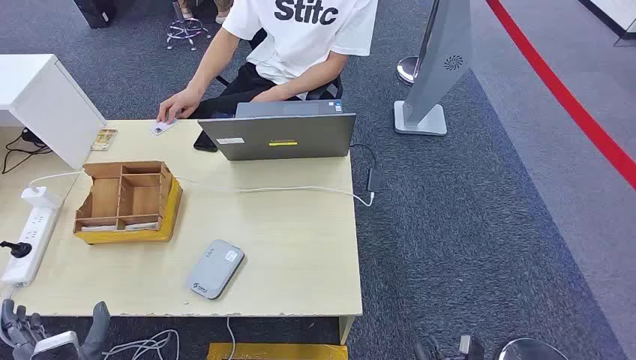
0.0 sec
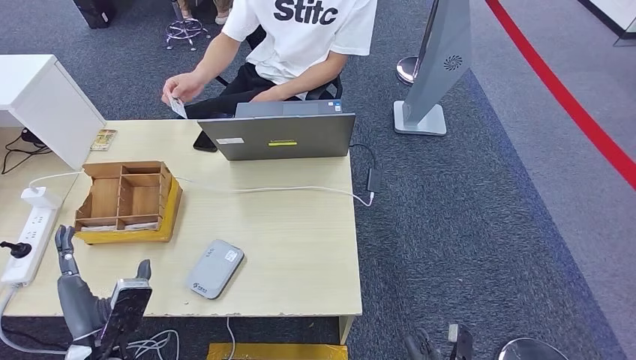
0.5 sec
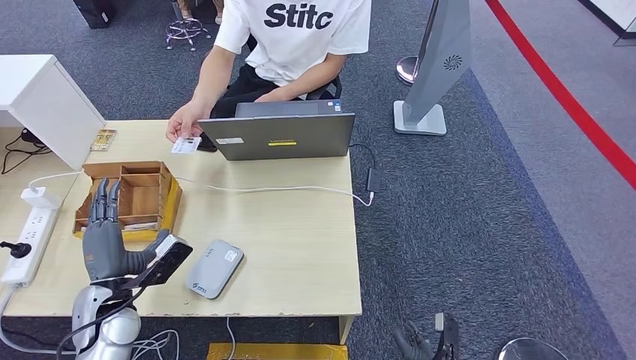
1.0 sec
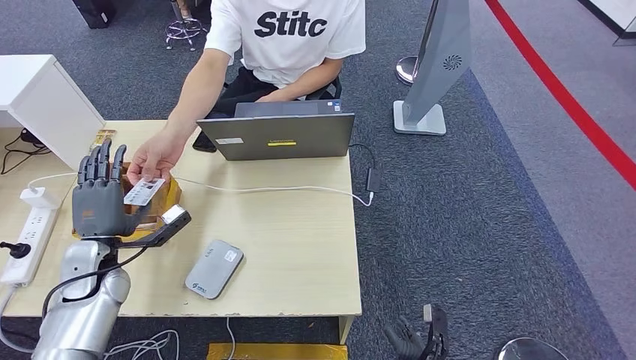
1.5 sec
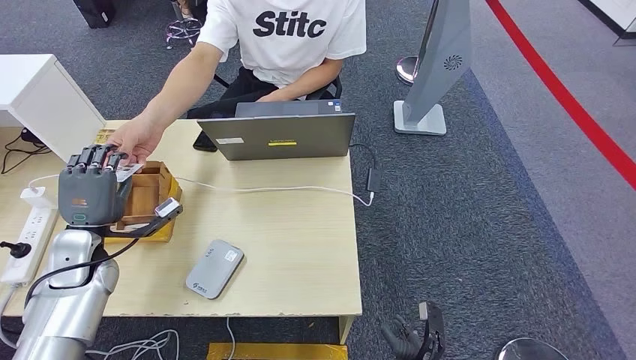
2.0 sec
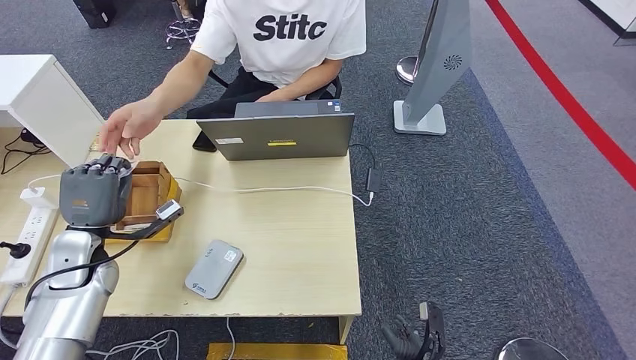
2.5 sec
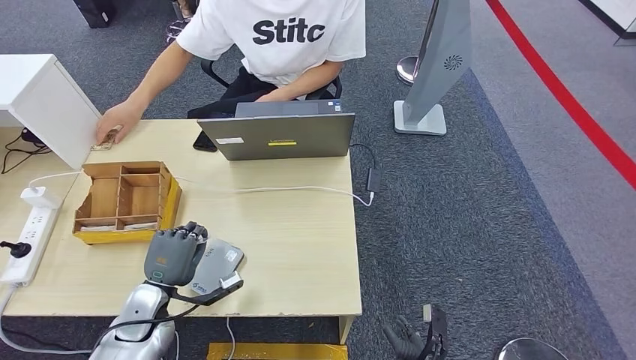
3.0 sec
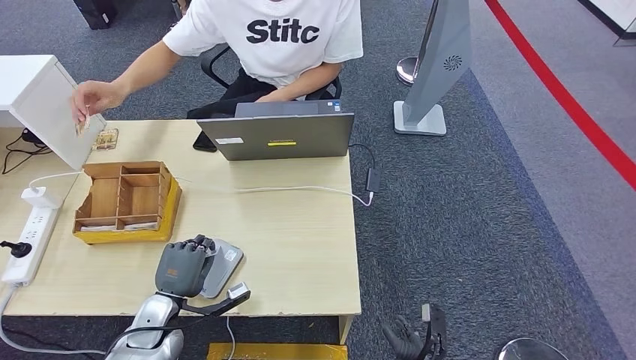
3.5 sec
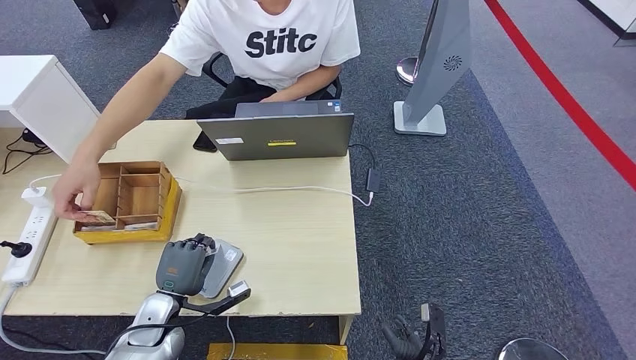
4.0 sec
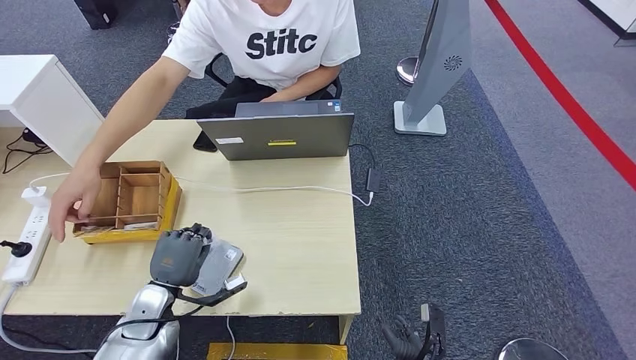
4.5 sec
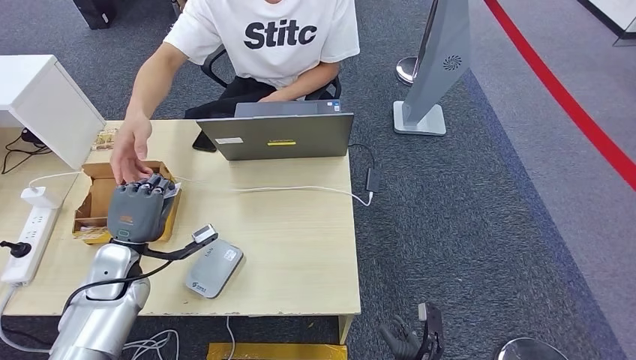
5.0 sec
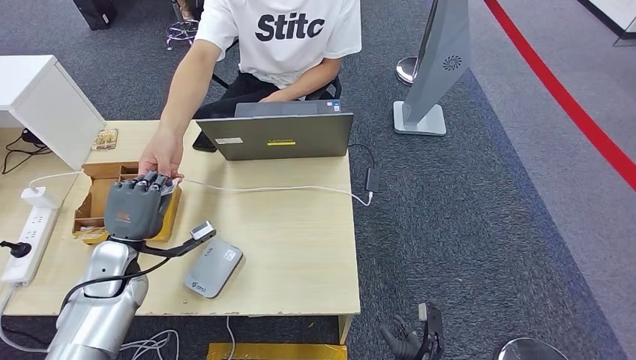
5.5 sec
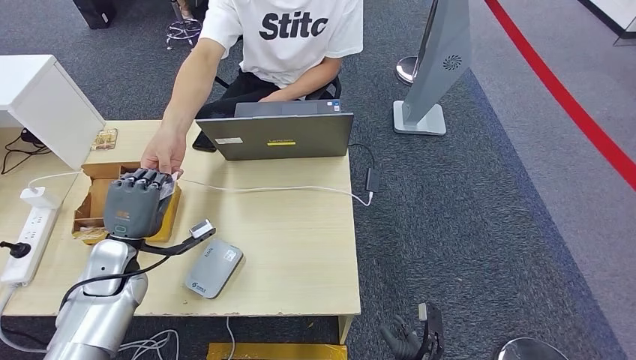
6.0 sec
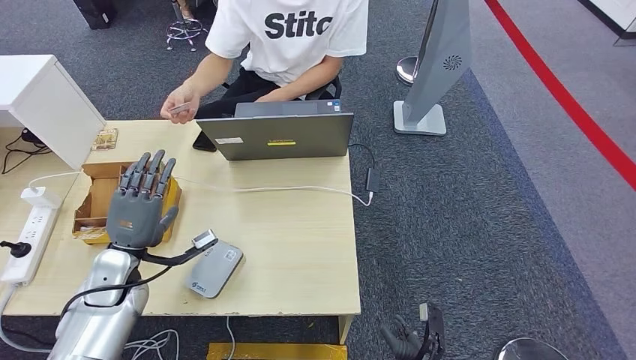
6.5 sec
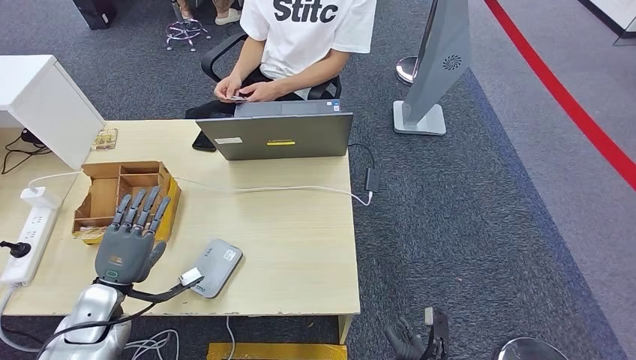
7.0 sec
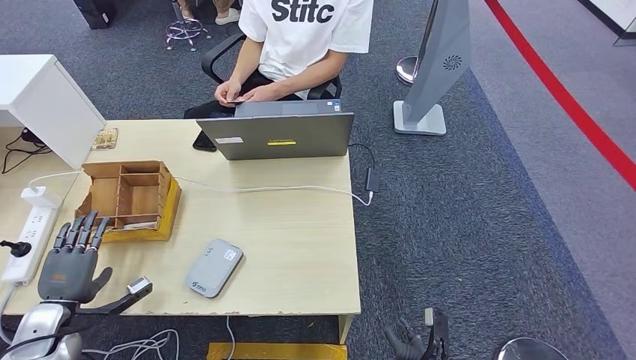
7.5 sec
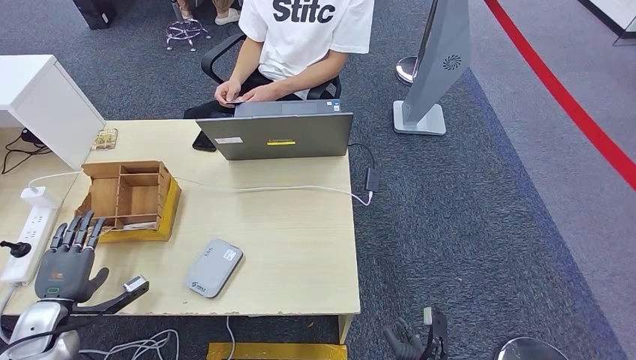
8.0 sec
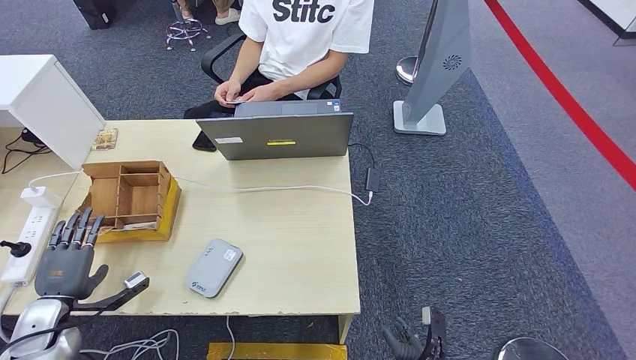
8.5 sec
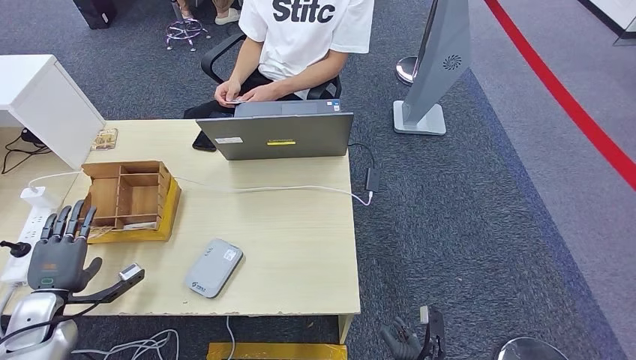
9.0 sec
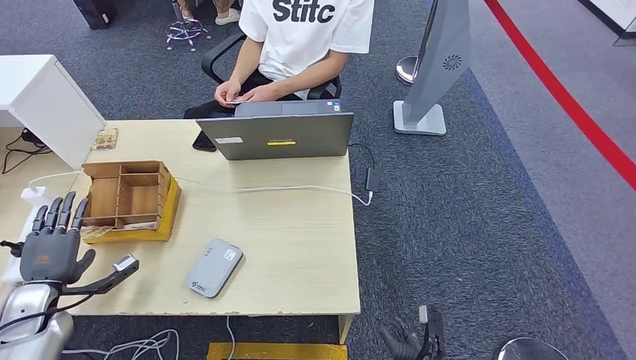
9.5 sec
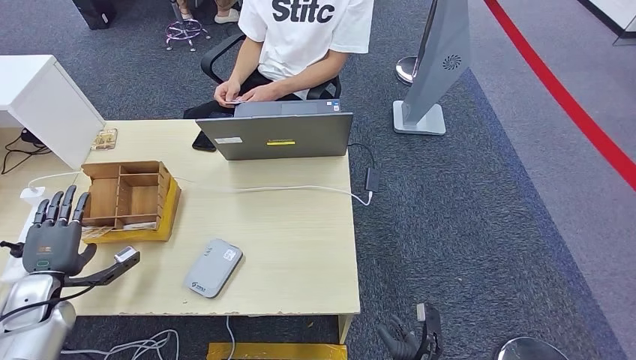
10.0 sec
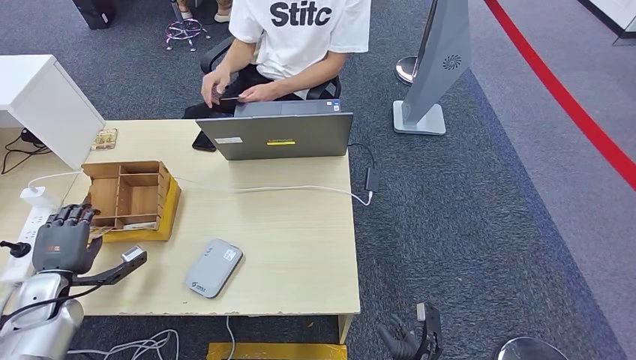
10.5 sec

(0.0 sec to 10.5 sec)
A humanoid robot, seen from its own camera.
Step, 0.0 sec - 2.5 sec: Take the ID card from the person's hand.
Step, 3.0 sec - 4.0 sec: Place the ID card on the card reader.
Step, 4.5 sec - 6.0 sec: Hand the ID card to the person.
2.0 sec - 4.0 sec: The left hand goes approximately 20 cm downward, to the right and backward.
4.0 sec - 6.5 sec: The left hand moves upward and forward, some 10 cm.
6.5 sec - 8.5 sec: The left hand moves to the left, downward and backward, about 15 cm.
8.5 sec - 10.5 sec: The hands move only a little.

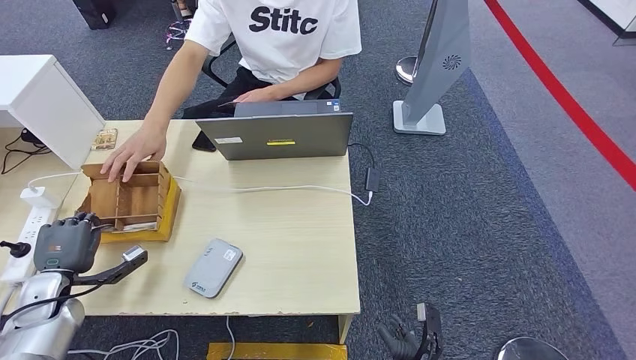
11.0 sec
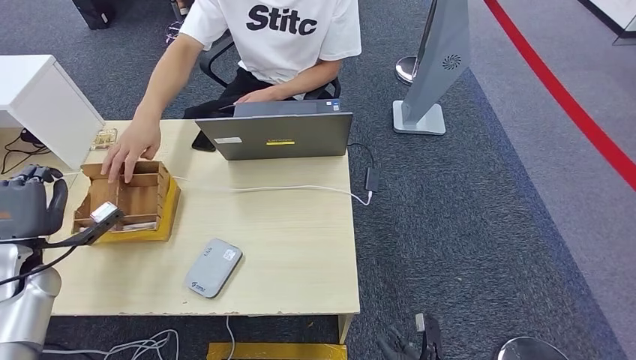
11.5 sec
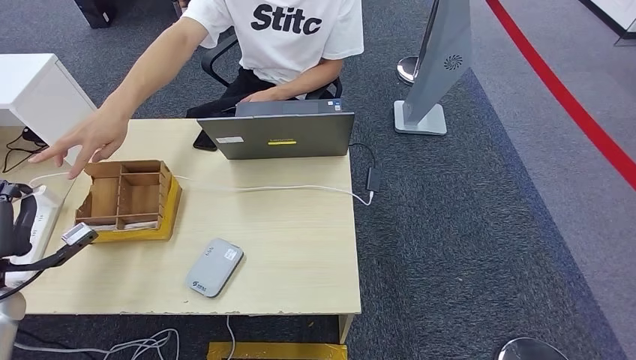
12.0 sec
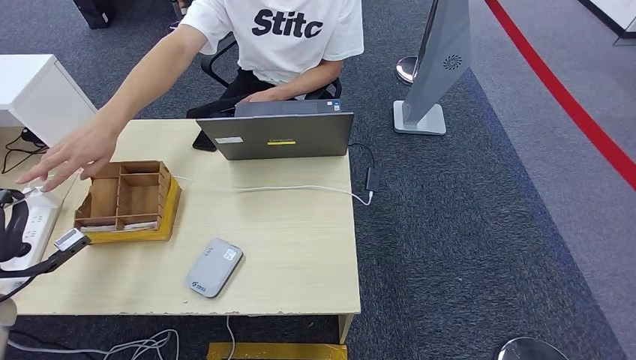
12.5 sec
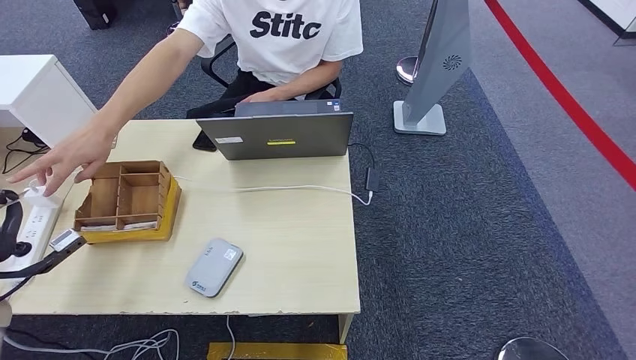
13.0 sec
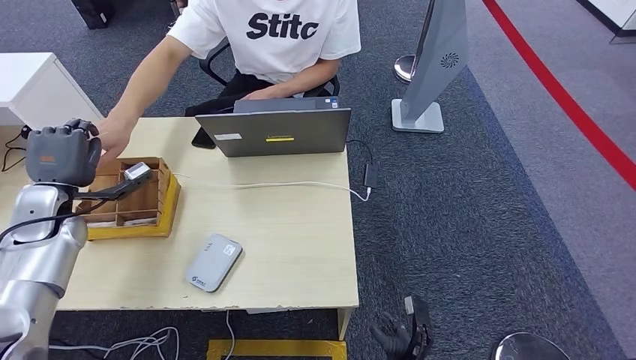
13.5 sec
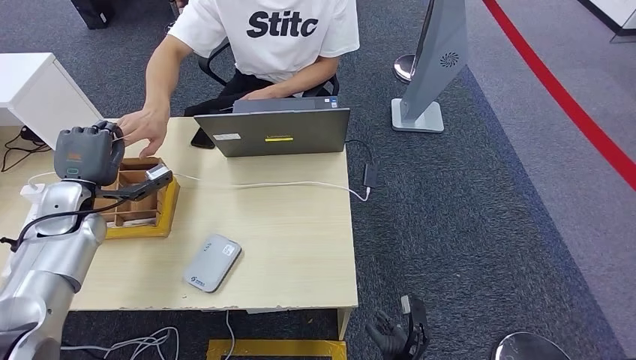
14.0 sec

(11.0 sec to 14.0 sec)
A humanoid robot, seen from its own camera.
Step, 11.5 sec - 14.0 sec: Hand the room key to the person.
11.0 sec - 12.5 sec: The left hand heads upward and to the left, covering some 10 cm. Meanwhile the right hand heads backward and to the right, covering about 20 cm.

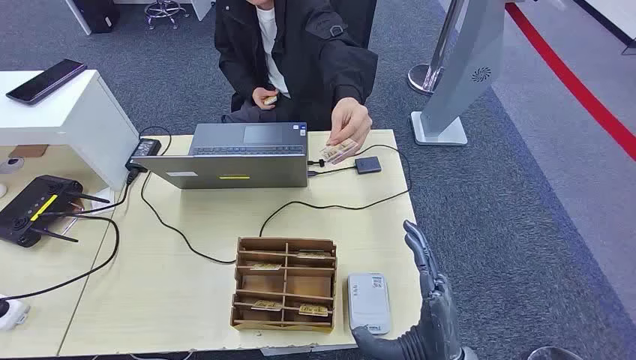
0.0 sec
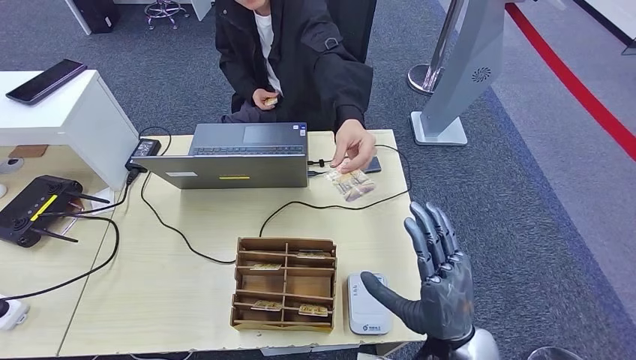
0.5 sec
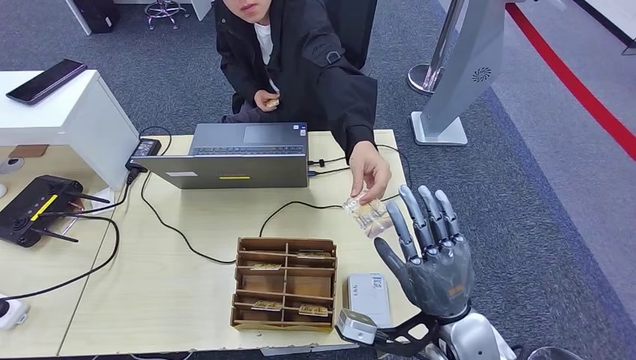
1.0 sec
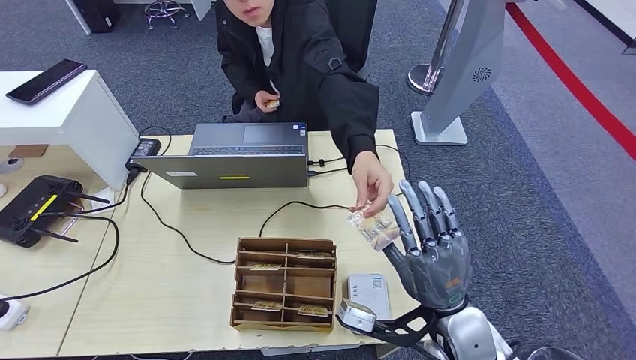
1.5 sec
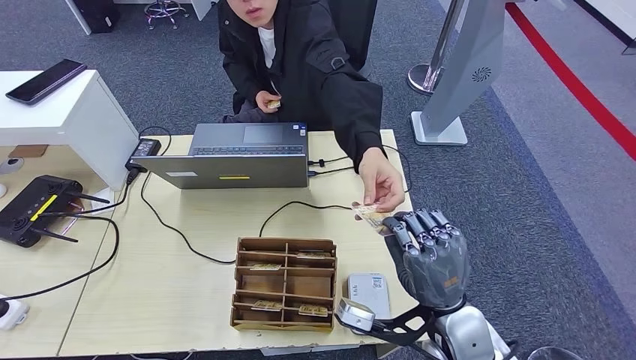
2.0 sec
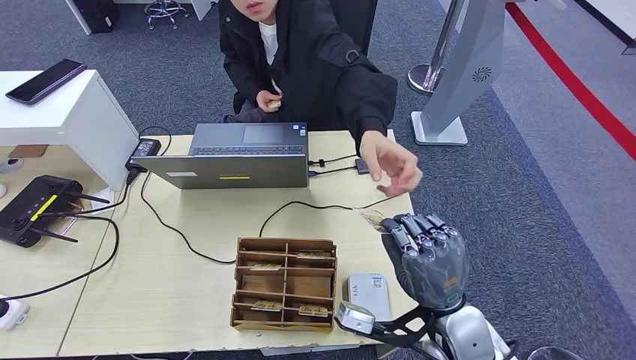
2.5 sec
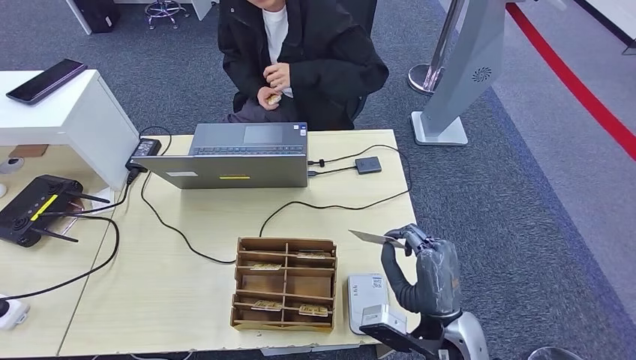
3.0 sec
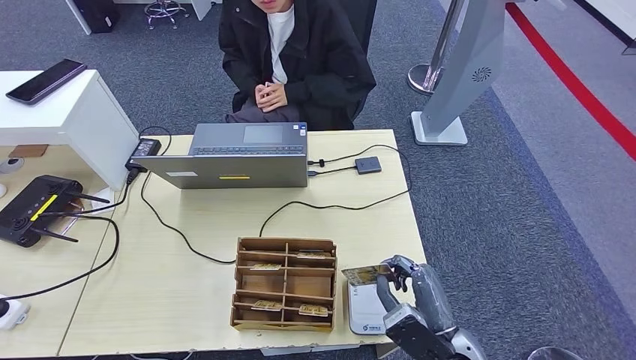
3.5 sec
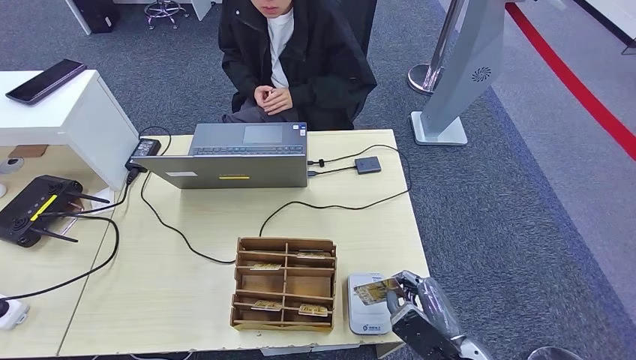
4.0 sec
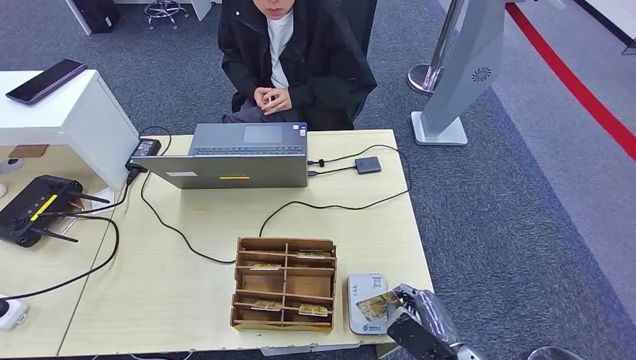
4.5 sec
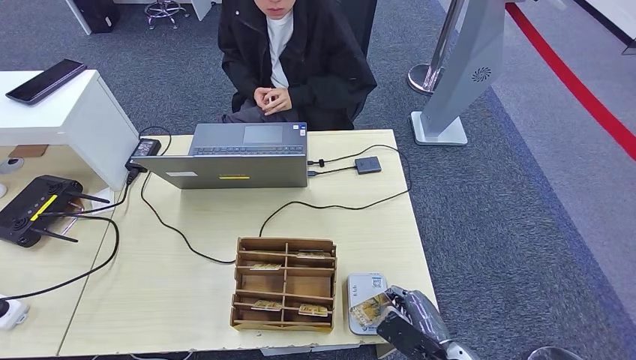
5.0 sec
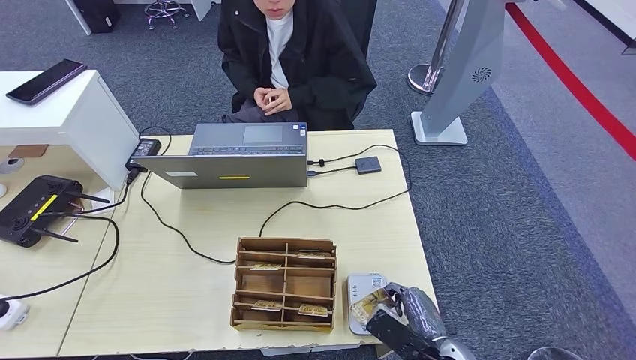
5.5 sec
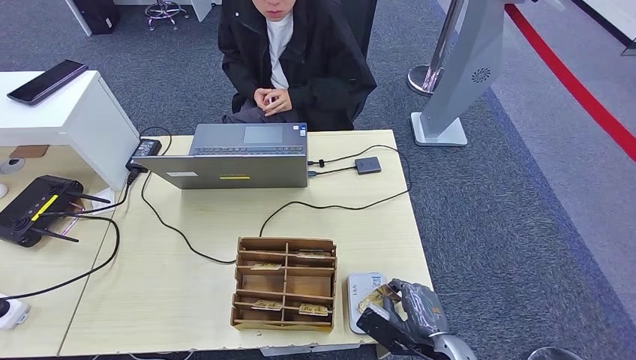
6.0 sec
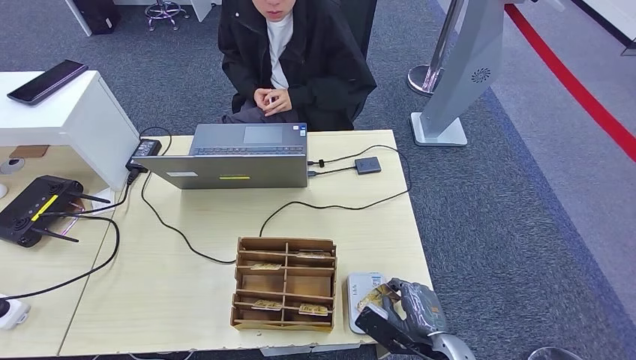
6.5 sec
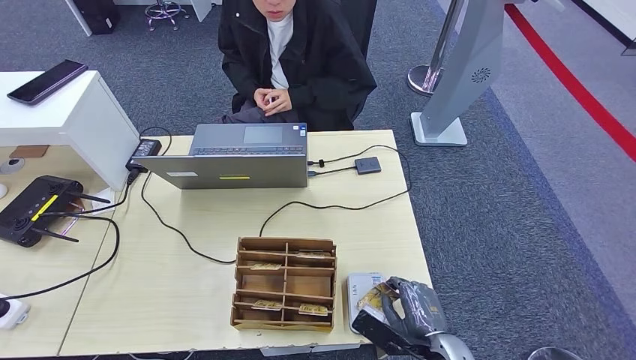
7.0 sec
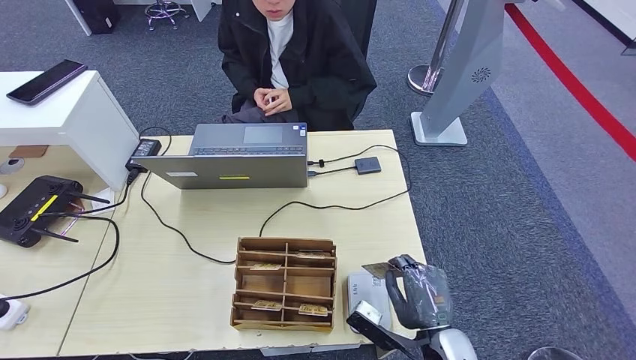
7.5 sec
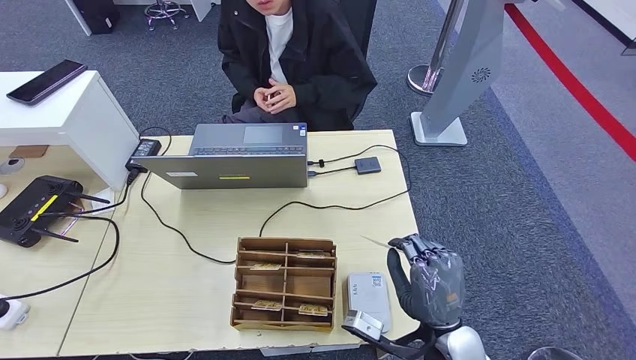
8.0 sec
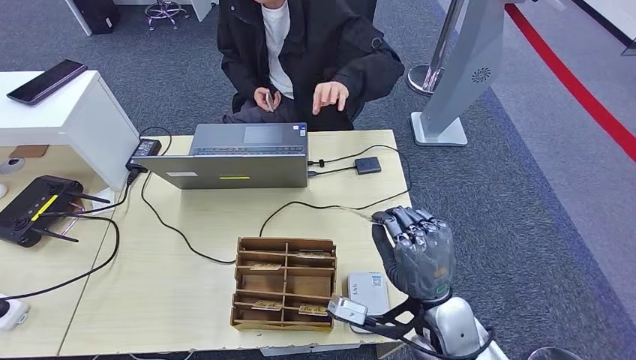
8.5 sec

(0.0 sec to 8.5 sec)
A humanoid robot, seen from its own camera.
Step, 0.0 sec - 3.0 sec: Take the ID card from the person's hand.
Step, 4.0 sec - 7.5 sec: Place the ID card on the card reader.
2.0 sec - 4.0 sec: The right hand heads downward and backward, covering some 10 cm.
6.5 sec - 8.5 sec: The right hand goes some 10 cm upward.
